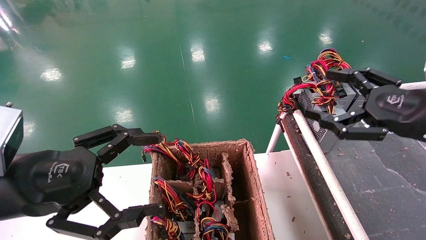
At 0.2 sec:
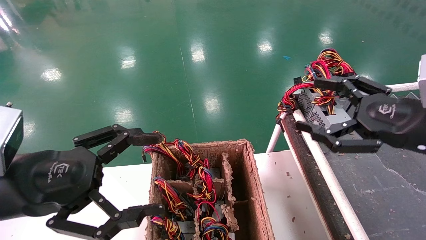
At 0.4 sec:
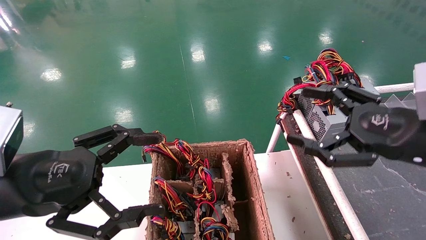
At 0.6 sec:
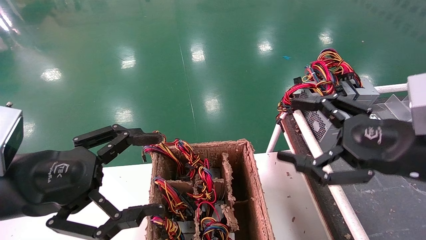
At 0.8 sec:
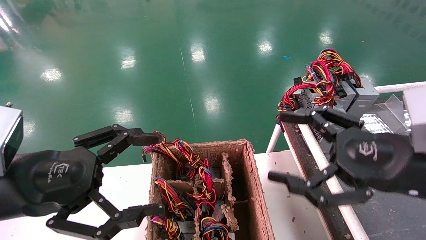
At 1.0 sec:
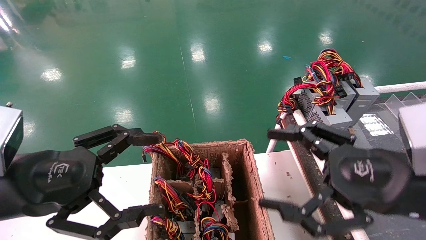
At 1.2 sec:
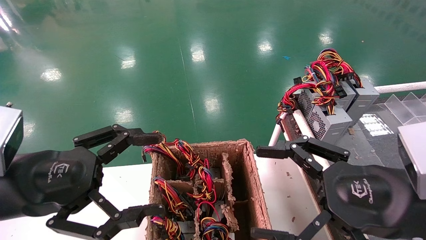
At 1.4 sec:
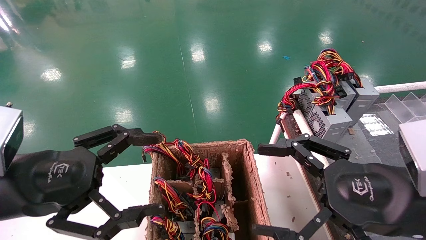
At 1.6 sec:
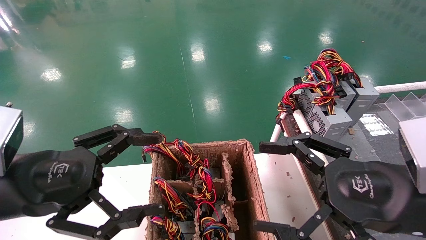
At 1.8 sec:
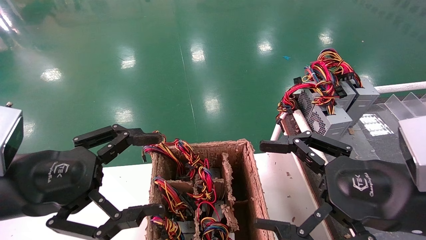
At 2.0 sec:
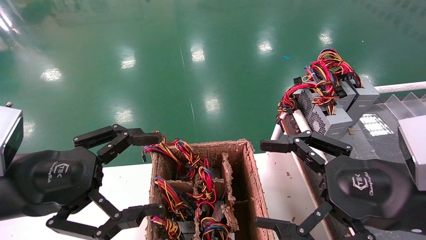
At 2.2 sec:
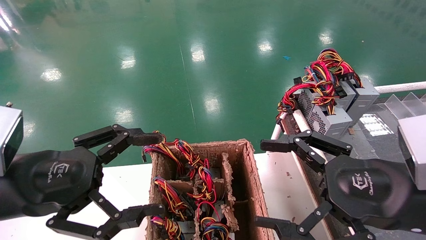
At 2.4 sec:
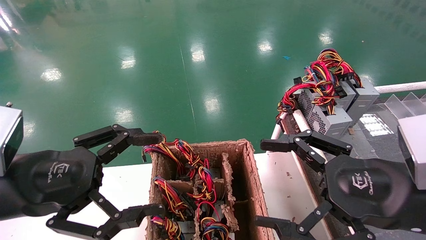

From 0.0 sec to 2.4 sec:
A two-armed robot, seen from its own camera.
From 0.0 sec to 1.2 sec: The right gripper is displaced to the left and backward by some 10 cm.
From 1.2 sec to 2.4 sec: Both grippers stay put.
